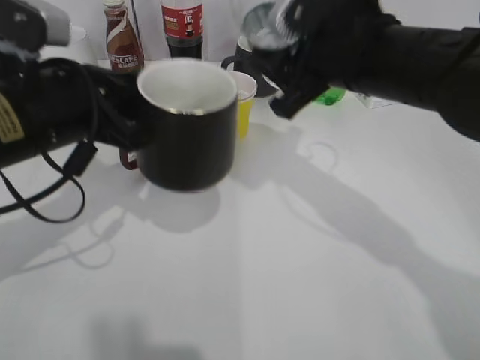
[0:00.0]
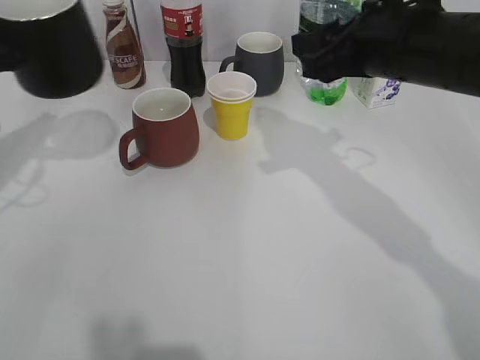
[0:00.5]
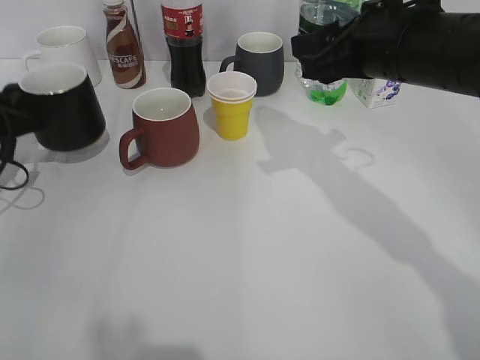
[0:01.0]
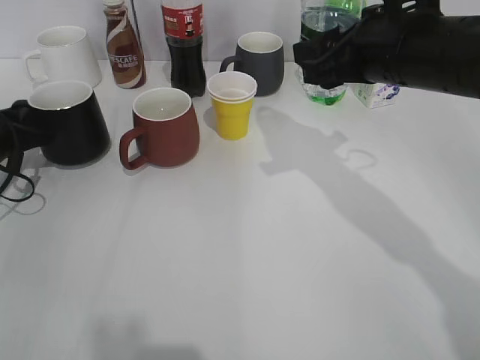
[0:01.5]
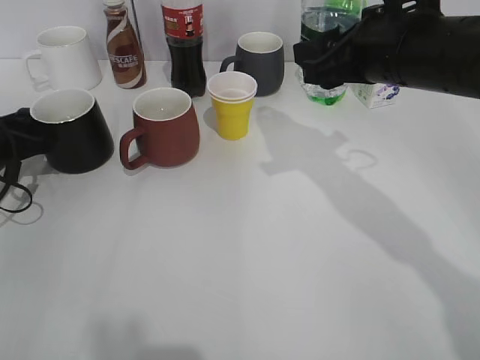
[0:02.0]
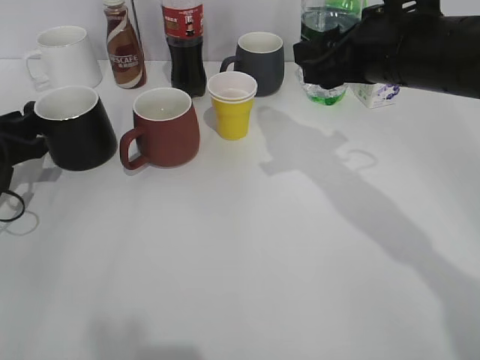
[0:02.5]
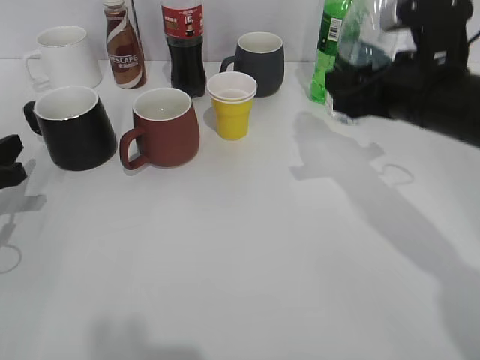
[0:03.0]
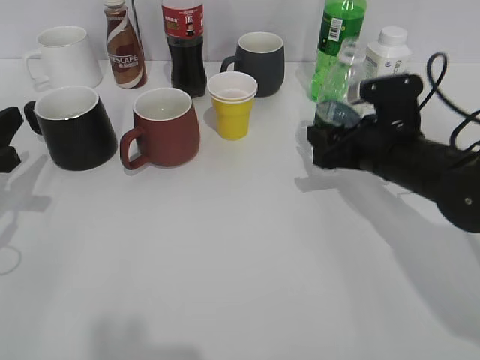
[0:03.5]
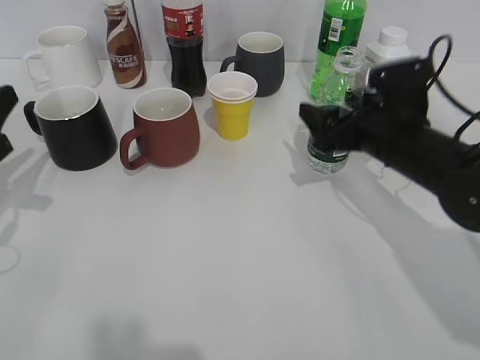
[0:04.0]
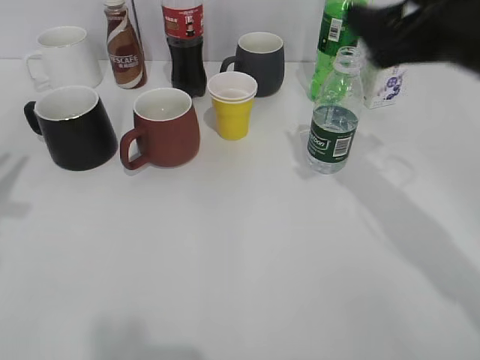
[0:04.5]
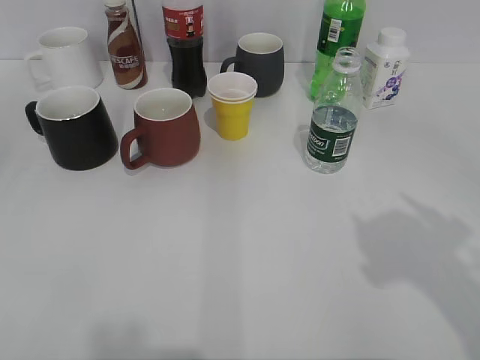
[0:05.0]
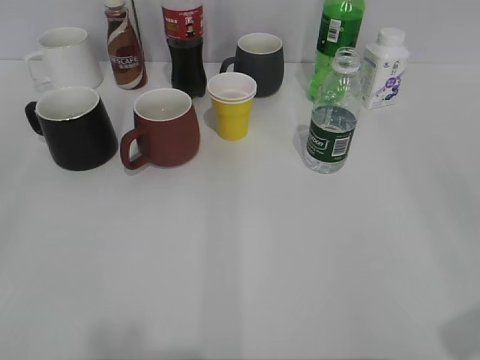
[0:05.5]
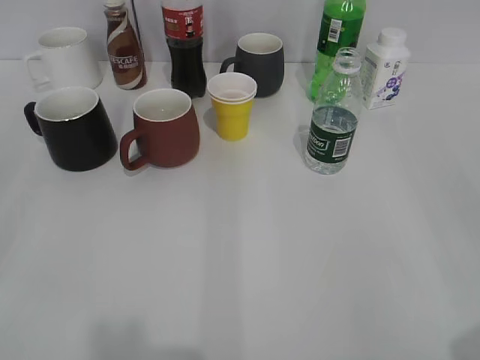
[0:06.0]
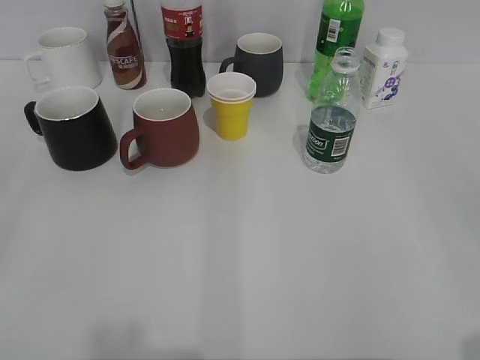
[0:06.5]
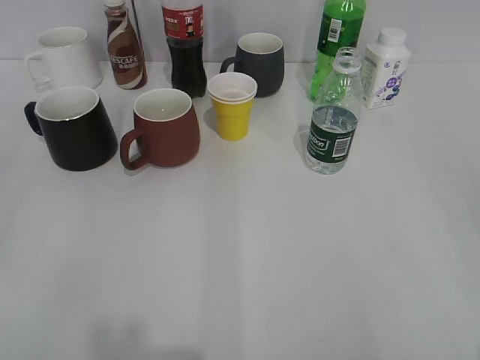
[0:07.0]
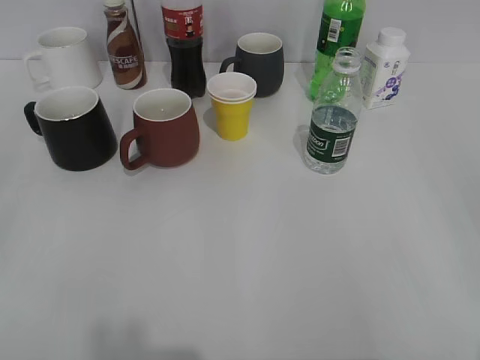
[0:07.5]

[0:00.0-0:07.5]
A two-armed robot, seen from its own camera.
Step, 0:00.0 to 0:02.0: Place the black cup on the table with left gripper.
Step, 0:02.5 to 0:04.0: Place the water bottle on the table with right gripper.
0:00.0 to 0:02.0: The left gripper heads to the left, downward and forward, covering approximately 20 cm.
0:02.0 to 0:04.0: The left gripper travels backward and upward by approximately 10 cm. The right gripper moves downward, approximately 10 cm, and opens.
0:04.0 to 0:05.5: The right gripper heads backward, upward and to the right, covering some 35 cm; the left gripper heads backward and upward, covering roughly 25 cm, and opens its fingers.

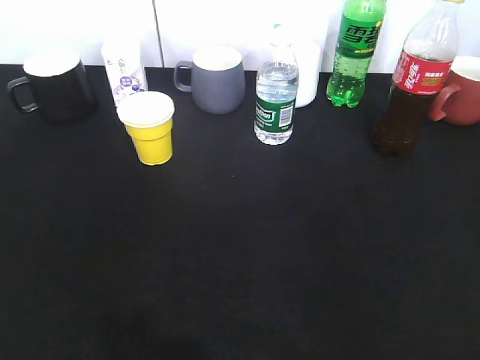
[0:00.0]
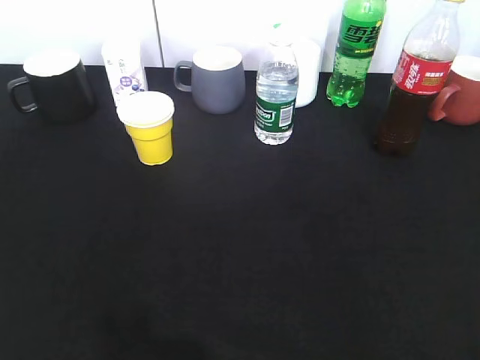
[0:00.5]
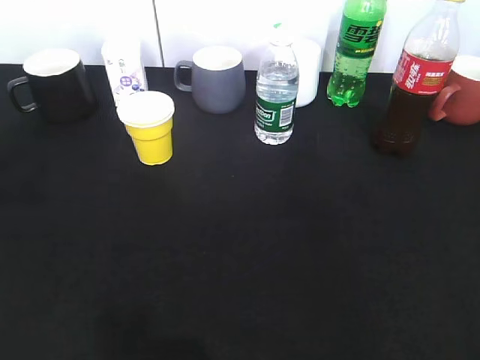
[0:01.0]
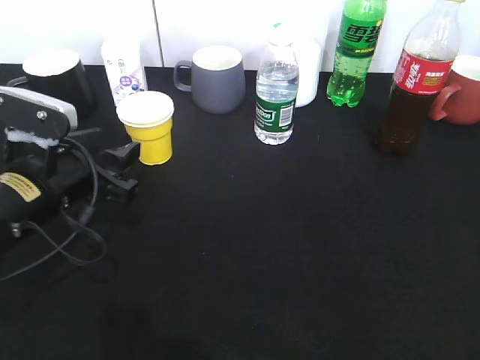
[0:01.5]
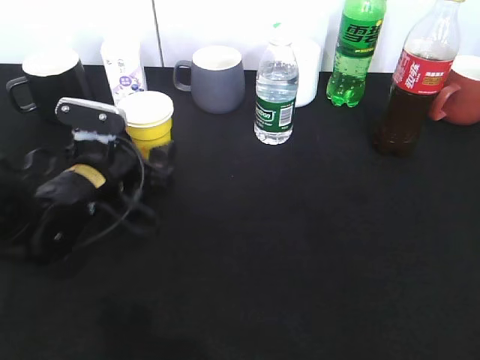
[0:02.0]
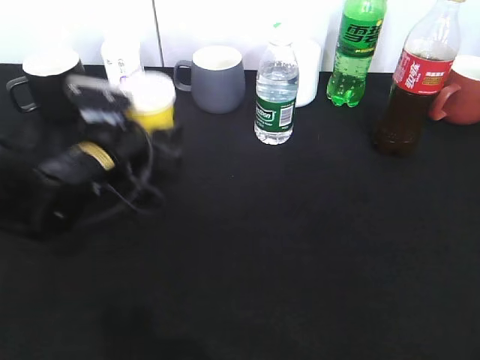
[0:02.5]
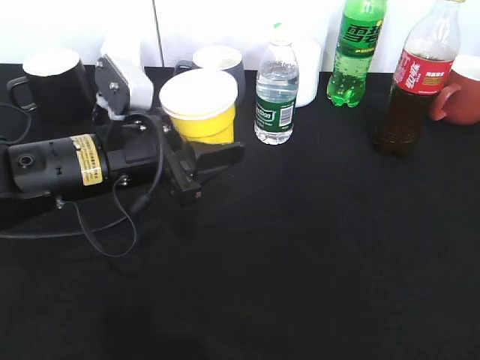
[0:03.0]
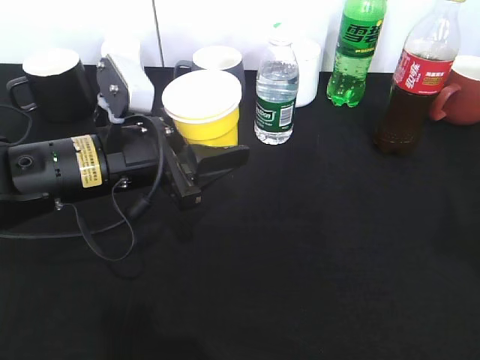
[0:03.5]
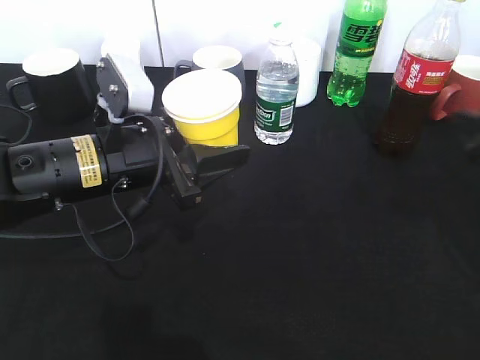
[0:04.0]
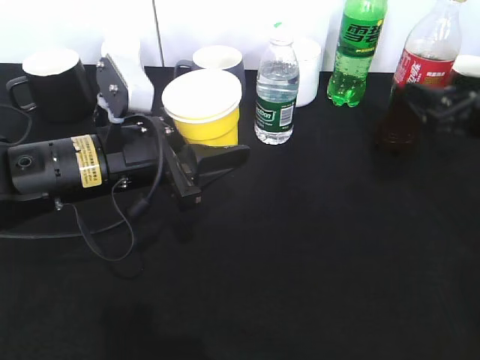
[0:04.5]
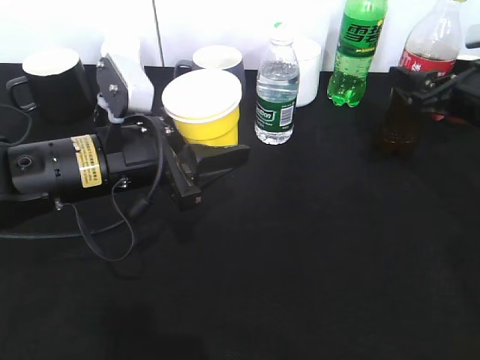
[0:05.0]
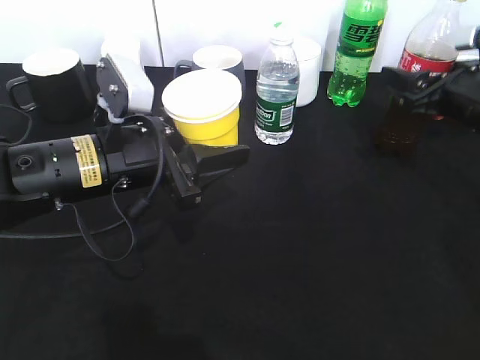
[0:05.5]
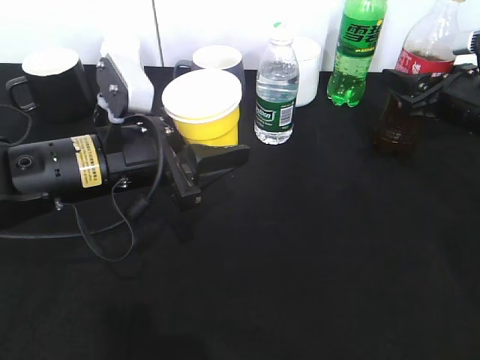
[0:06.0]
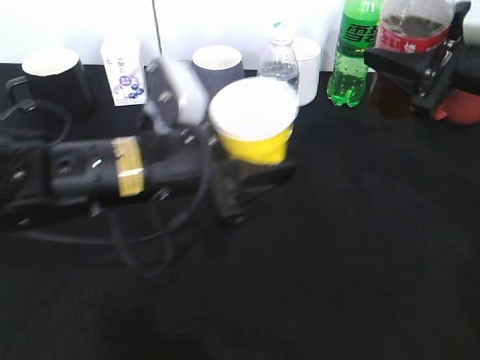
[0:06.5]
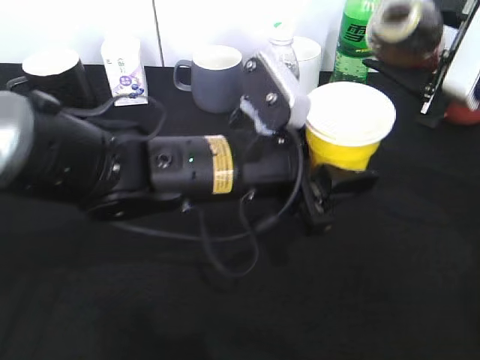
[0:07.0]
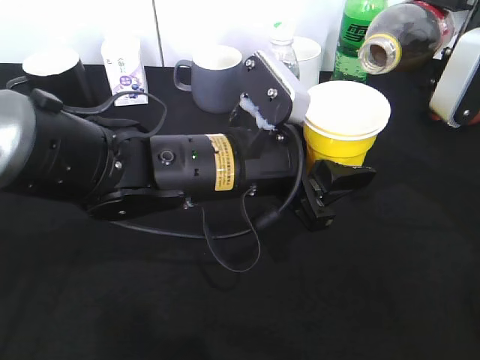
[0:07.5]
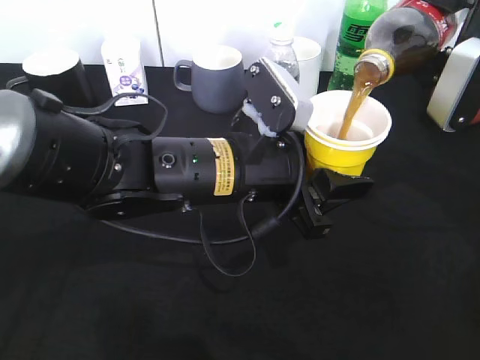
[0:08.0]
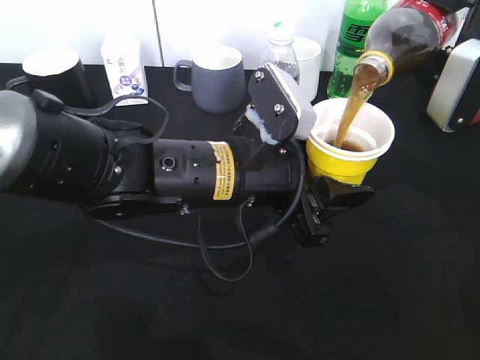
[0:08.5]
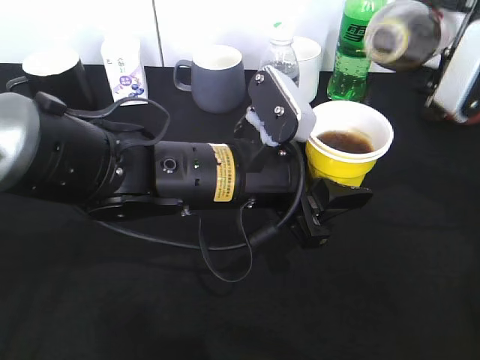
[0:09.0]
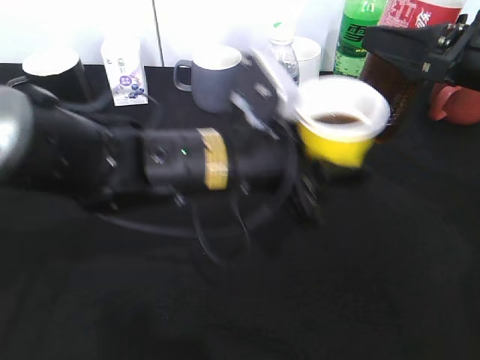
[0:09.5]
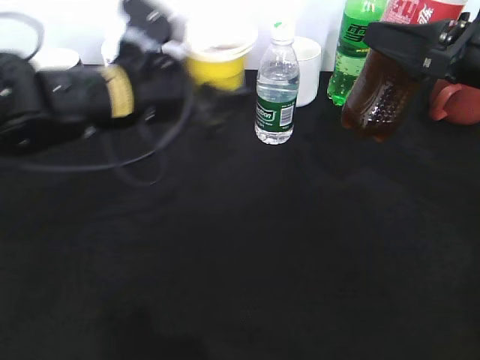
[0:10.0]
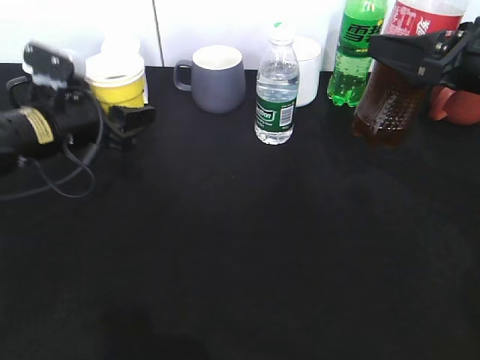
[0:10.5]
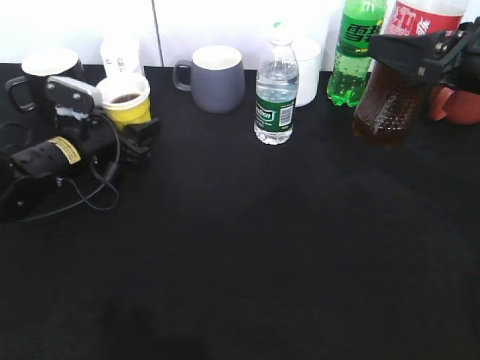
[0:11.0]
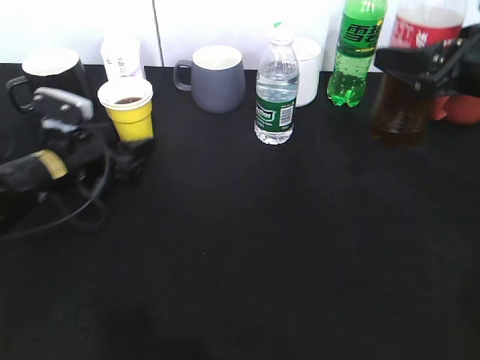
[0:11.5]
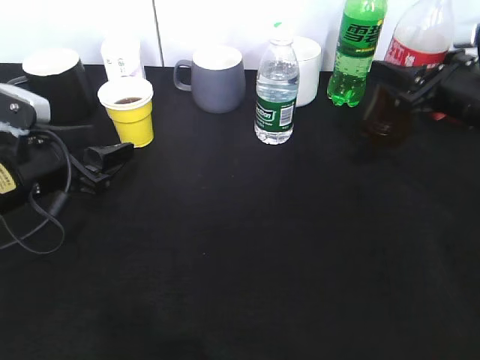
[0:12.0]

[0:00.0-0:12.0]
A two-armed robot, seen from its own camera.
Step, 0:00.5 to 0:02.0: Grasp the yellow paper cup with left gripper.
Step, 0:03.0 to 0:06.0: Grasp the bottle with cola with right gripper.
Step, 0:06.5 to 0:08.5: Pour the cola from bottle to cup with right gripper.
Step, 0:09.0 to 0:11.5: Place the yellow paper cup on the table with left gripper.
0:00.0 to 0:02.0: The left gripper shifts some 40 cm forward, downward and to the right, and opens up.
0:02.0 to 0:04.0: The right gripper moves forward, about 25 cm. Meanwhile the left gripper goes some 10 cm upward and backward, and closes.
0:04.0 to 0:06.0: The right gripper moves forward, roughly 10 cm, and closes its fingers.
0:06.0 to 0:08.0: The right gripper goes about 10 cm upward. The left gripper moves to the right, about 10 cm.
0:08.0 to 0:10.0: The left gripper travels to the left and forward by approximately 15 cm.
0:10.0 to 0:12.0: The left gripper is displaced to the left and downward by some 15 cm, and opens up. The right gripper travels downward by about 5 cm.

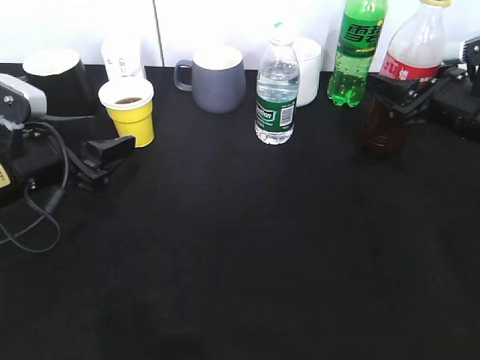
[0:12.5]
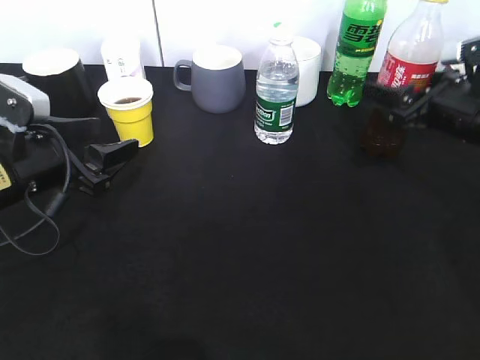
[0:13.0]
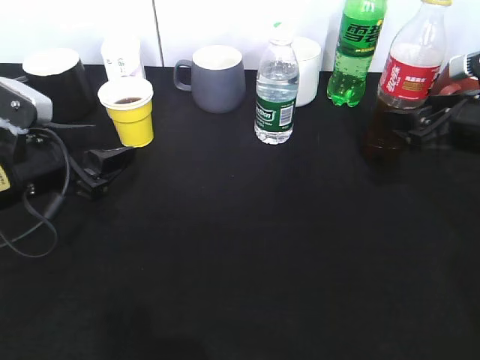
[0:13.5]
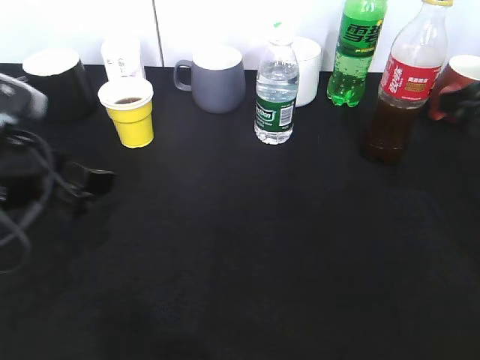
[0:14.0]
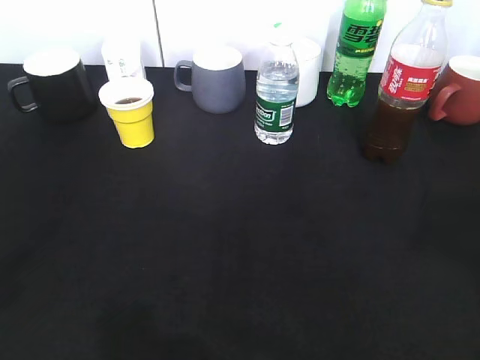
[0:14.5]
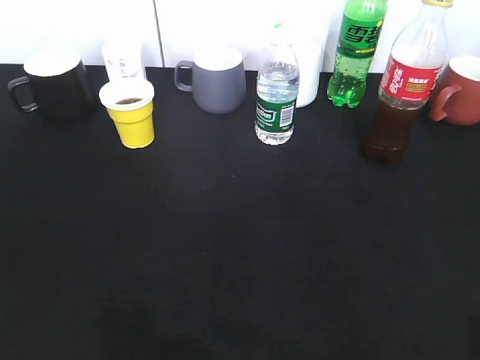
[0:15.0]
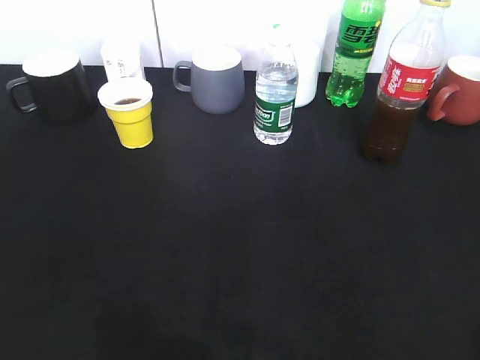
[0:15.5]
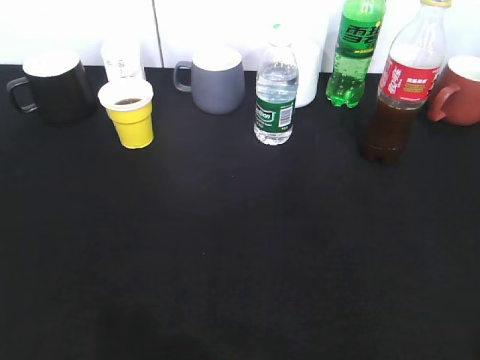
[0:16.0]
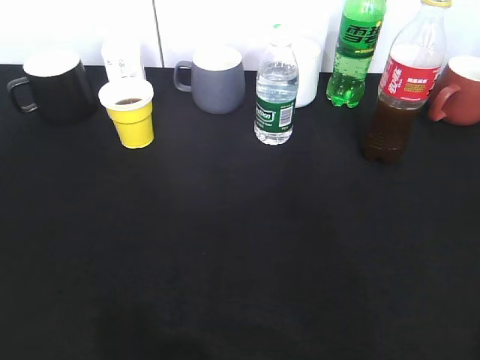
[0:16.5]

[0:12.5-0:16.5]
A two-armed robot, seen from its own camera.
0:12.5 to 0:14.5: Both grippers move backward and upward, roughly 25 cm. The right gripper opens up.
